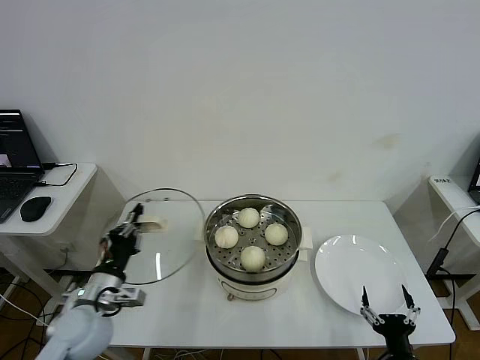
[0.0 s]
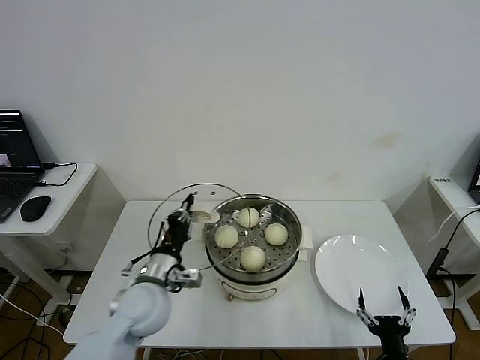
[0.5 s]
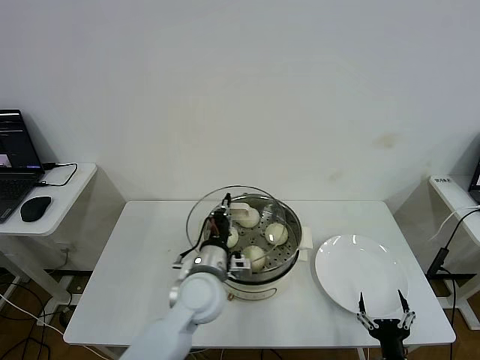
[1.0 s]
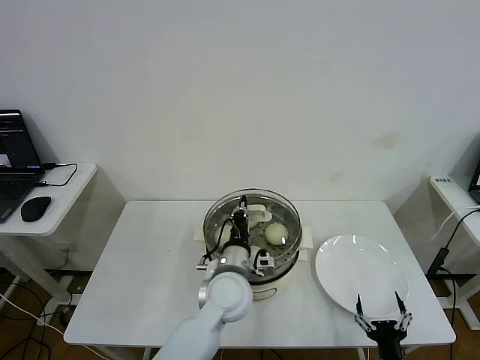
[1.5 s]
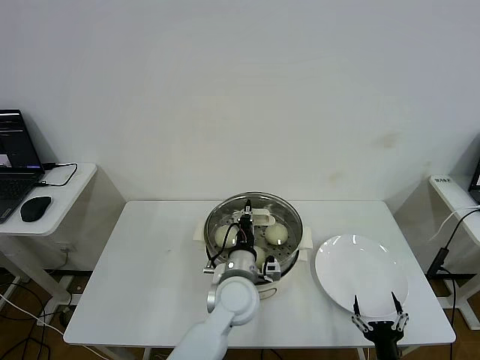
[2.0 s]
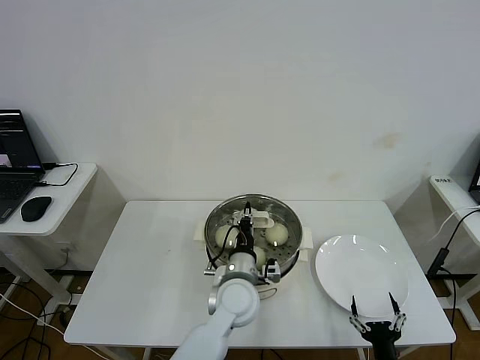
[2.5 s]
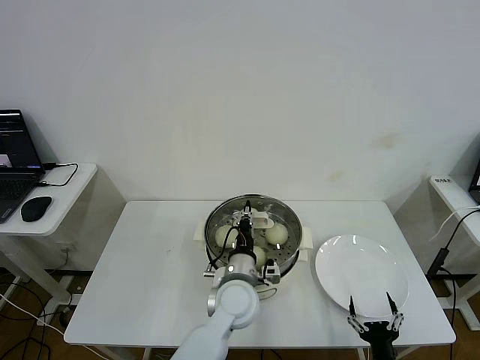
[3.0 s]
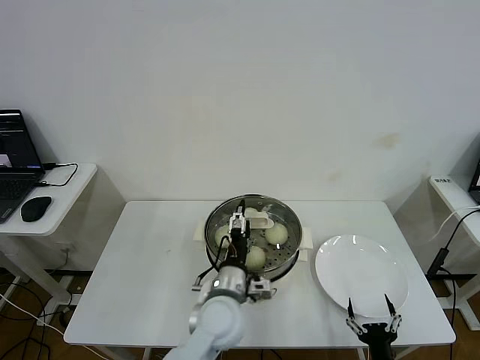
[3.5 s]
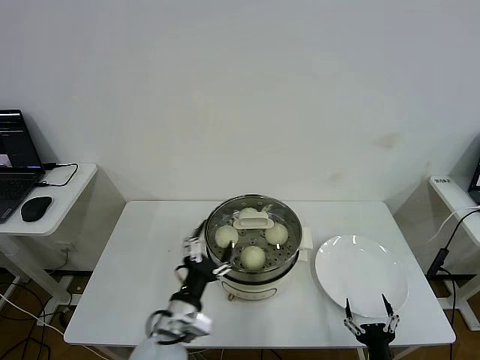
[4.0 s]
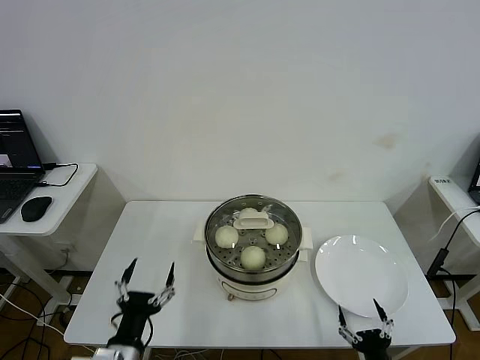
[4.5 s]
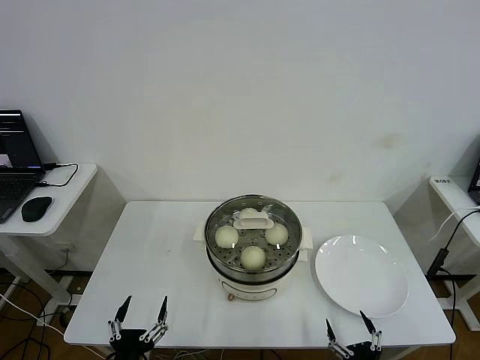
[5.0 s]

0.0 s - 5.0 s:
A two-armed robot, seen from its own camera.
Step, 0.0 s - 3.5 s: Place the pot lid on the steamer with left gripper.
0.0 s - 2.5 s: The left gripper is displaced to the right by some 30 cm.
2.5 s - 5.0 s: The left gripper shifts approximately 35 cm backward and to the left, and opens up.

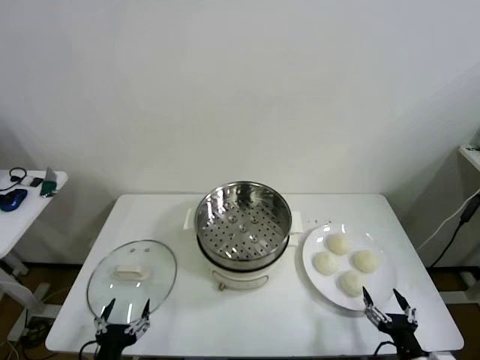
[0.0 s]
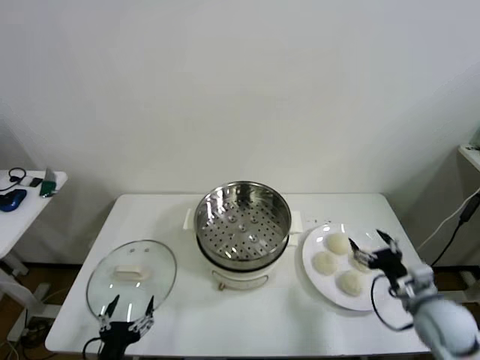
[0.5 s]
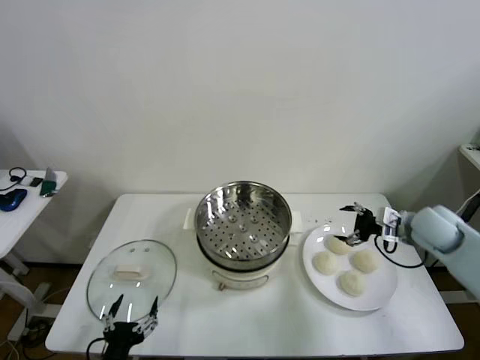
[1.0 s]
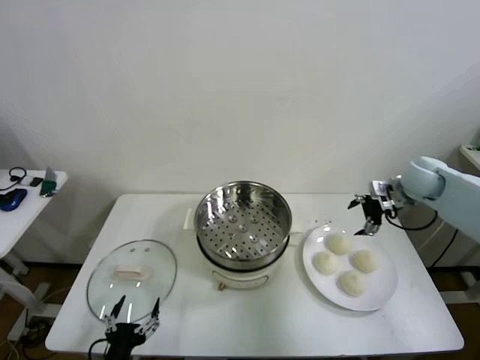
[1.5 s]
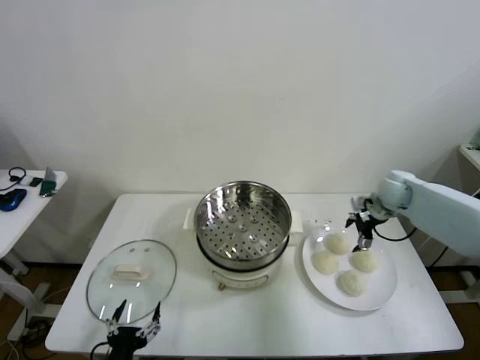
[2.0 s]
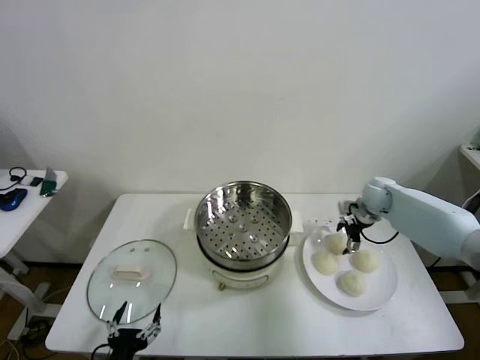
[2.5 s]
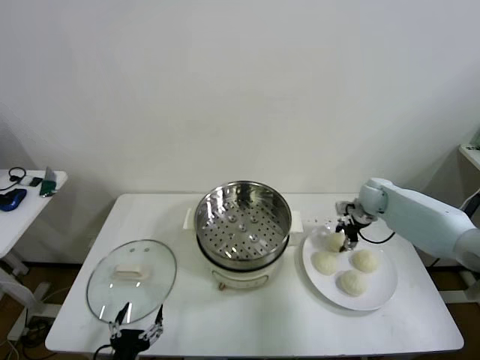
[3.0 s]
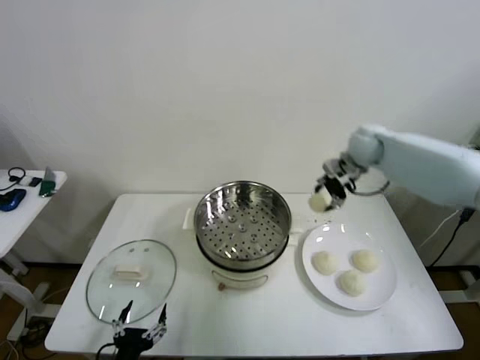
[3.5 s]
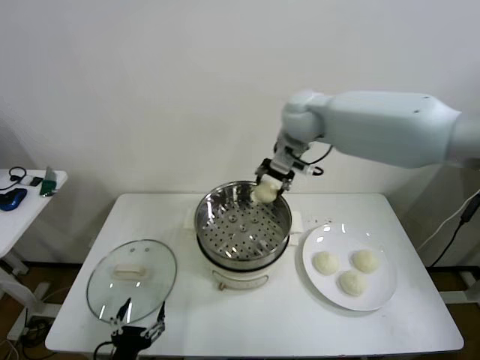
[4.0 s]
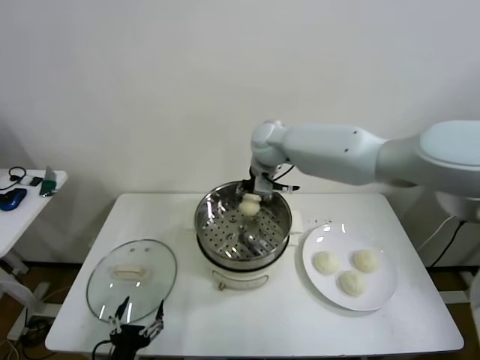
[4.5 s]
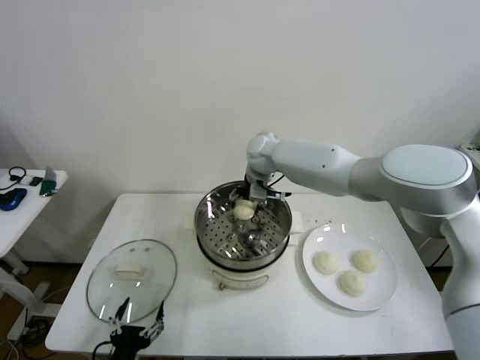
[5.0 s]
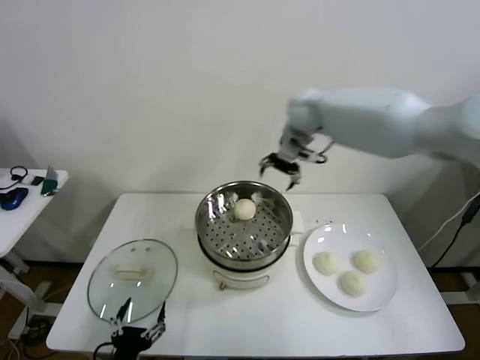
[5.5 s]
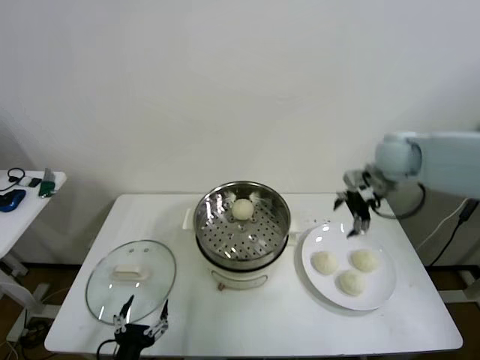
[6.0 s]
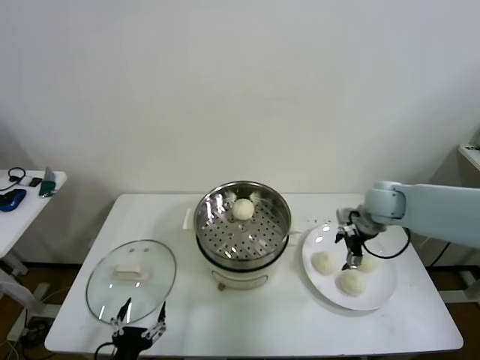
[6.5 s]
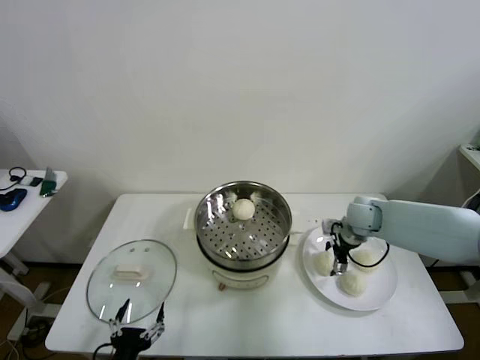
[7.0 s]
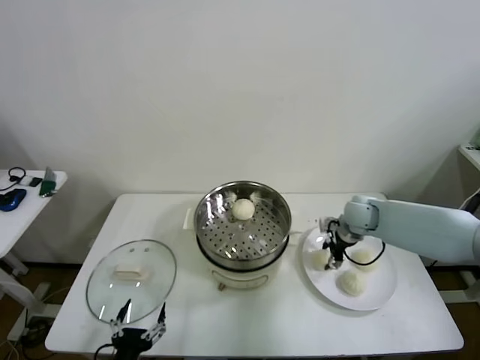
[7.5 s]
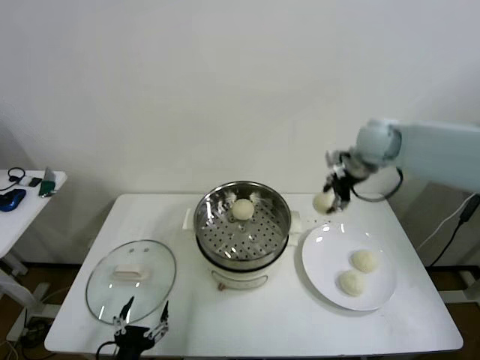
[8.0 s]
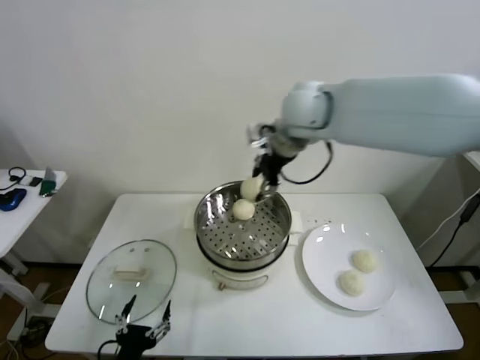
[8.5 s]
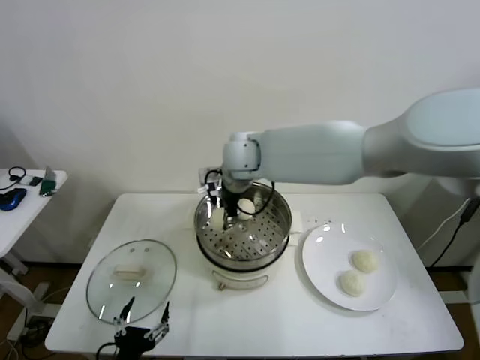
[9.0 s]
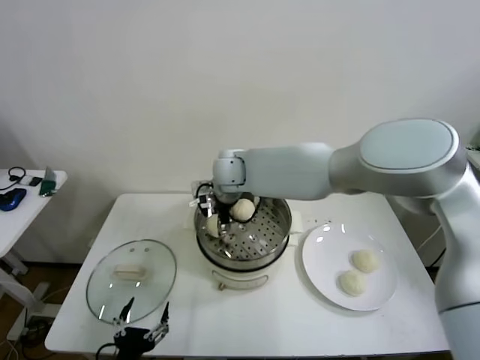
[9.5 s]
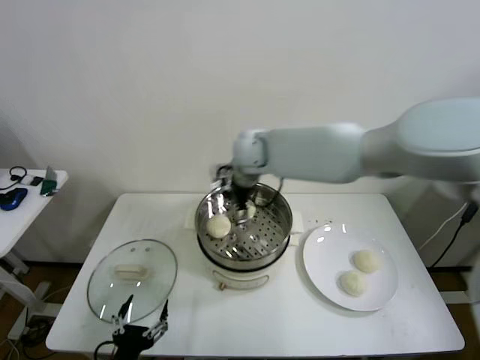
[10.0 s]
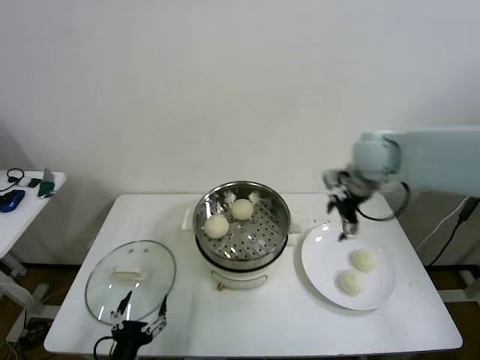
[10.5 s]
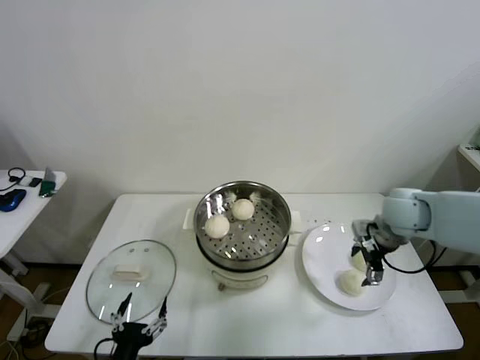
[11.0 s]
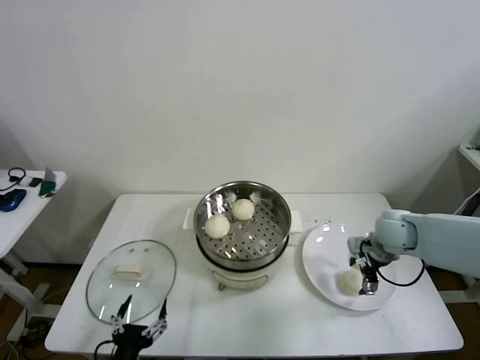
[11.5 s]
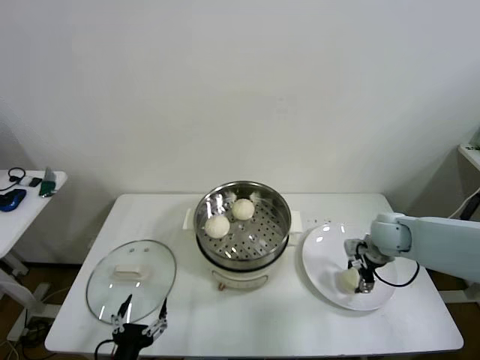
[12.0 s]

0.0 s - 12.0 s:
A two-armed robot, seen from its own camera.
Step, 0.0 s - 2.5 s: Grasp the baozi in the plate with right gripper.
Step, 3.0 s - 5.0 s: Place the baozi on the steamer with right gripper.
Step, 5.5 s - 7.0 s: Grasp the baozi in the plate with right gripper.
Step, 7.5 s - 9.5 s: Place the baozi on the steamer with right gripper.
Step, 10.0 s - 12.0 s: Grasp the baozi in the plate with right gripper.
2.0 s - 4.0 s: The right gripper travels to the left and upward by some 35 cm, and closes up.
4.0 s - 6.0 s: The right gripper is displaced to the right by approximately 25 cm, and opens its fingers.
6.0 s - 8.0 s: The right gripper heads upward and to the left, covering approximately 10 cm, and closes up.
8.0 s - 10.0 s: The right gripper is displaced to the left by roughly 20 cm, and opens its fingers.
10.0 s - 12.0 s: The right gripper heads to the right and downward, covering about 35 cm, and closes its fingers.

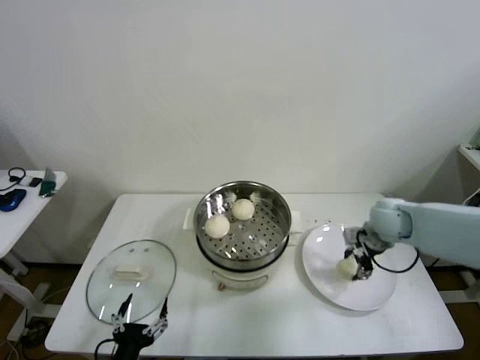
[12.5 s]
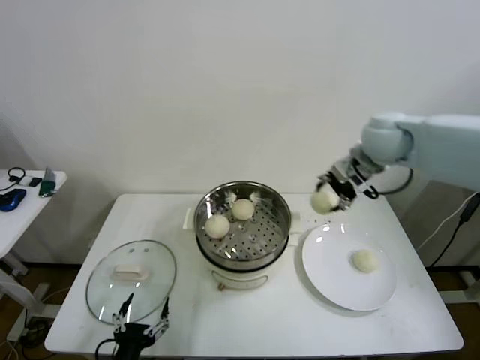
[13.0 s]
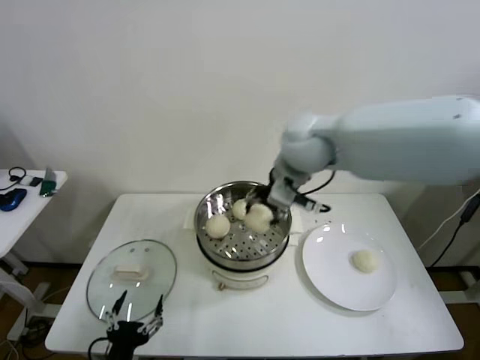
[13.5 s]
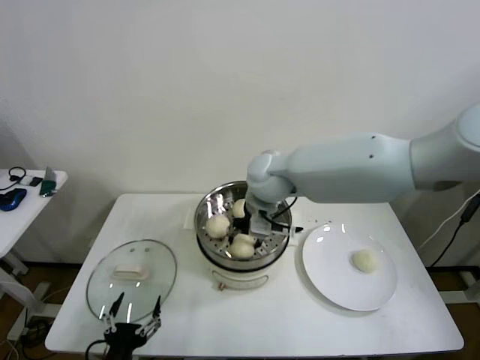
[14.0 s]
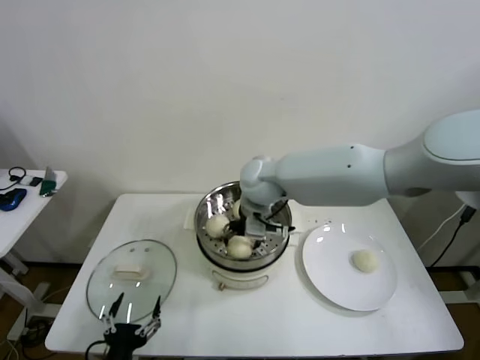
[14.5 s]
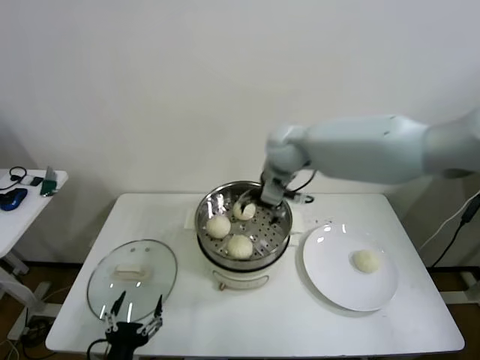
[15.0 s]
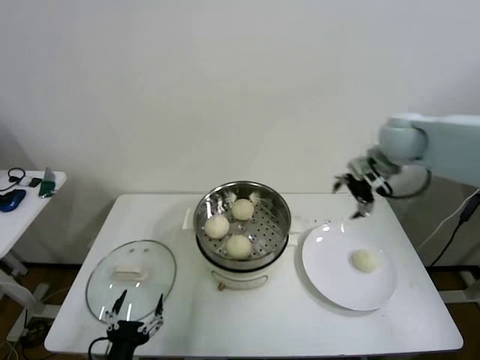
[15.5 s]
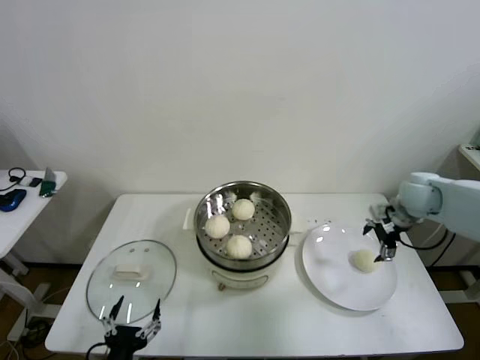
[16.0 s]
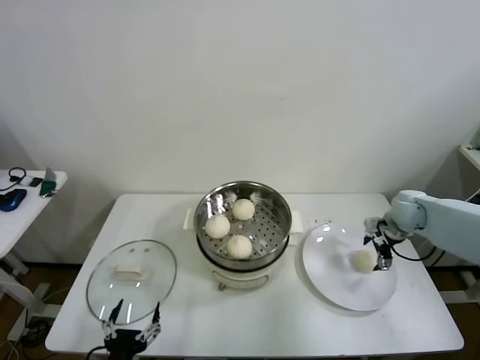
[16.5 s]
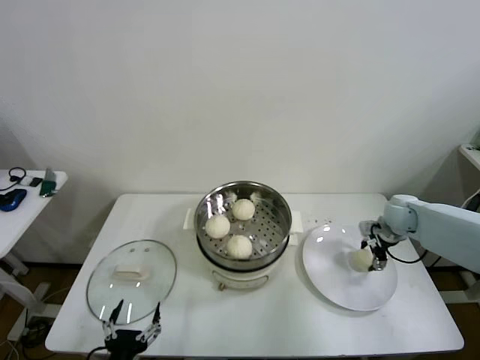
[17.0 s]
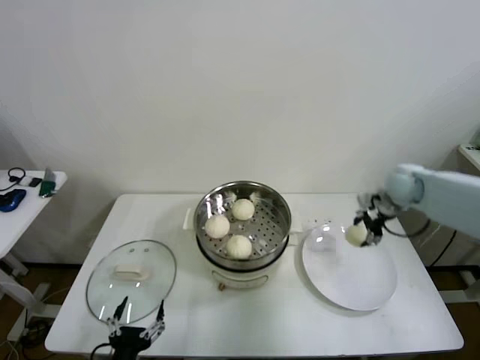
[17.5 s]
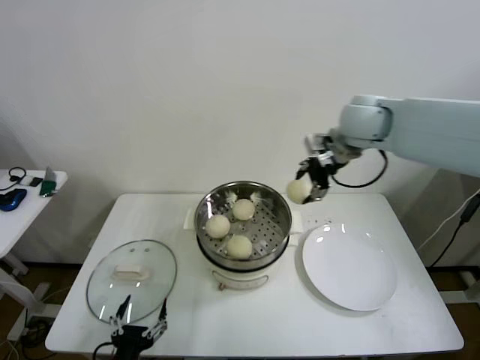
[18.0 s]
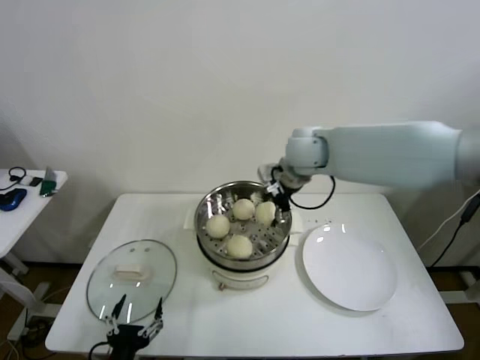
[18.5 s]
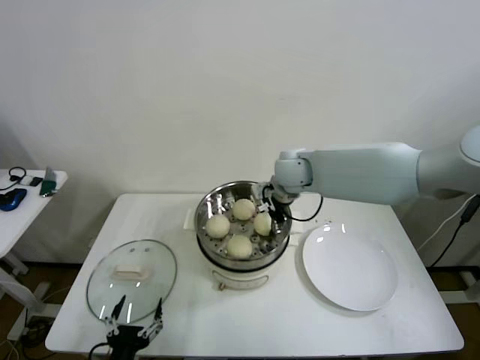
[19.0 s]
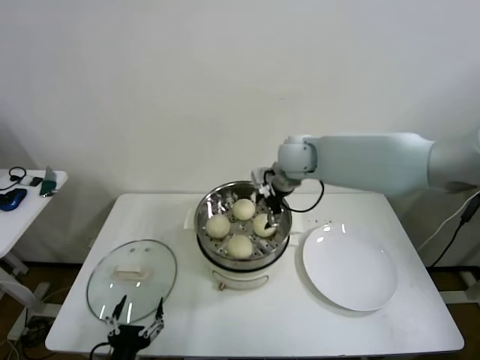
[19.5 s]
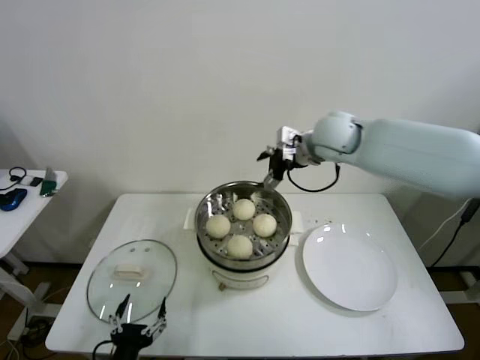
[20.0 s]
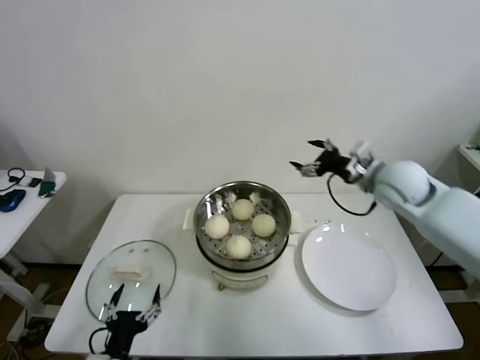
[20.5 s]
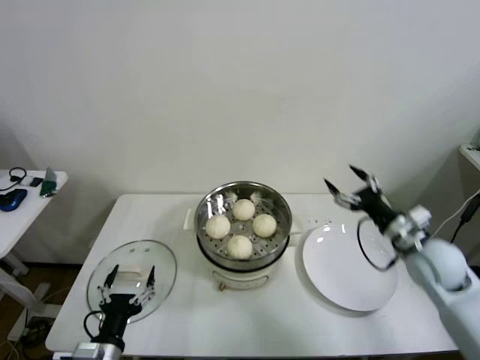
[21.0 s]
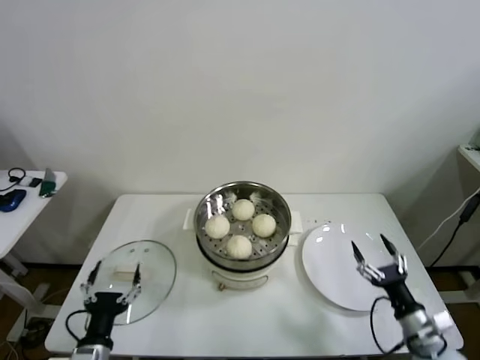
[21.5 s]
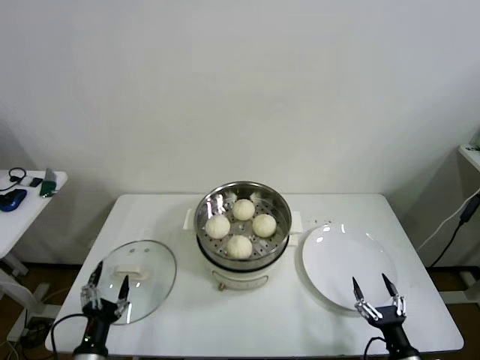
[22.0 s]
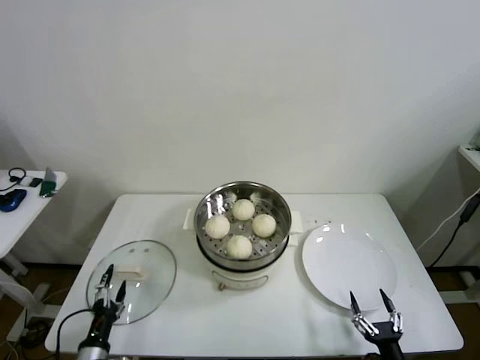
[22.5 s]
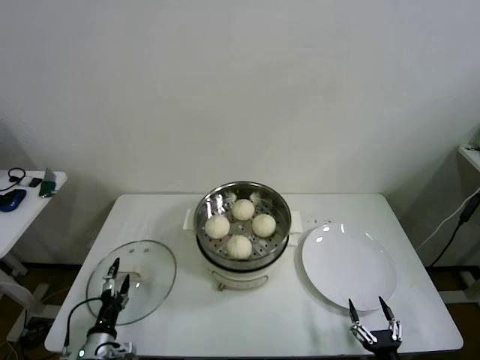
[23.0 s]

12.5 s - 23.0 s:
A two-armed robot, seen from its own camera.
Step, 12.5 s - 14.5 s: Place the baozi on the steamer with right gripper.
Step, 15.0 s - 17.0 s: Grasp the baozi in the plate with right gripper.
Step, 17.5 s - 19.0 s: Place the baozi on the steamer with right gripper.
12.5 s - 14.5 s: The right gripper heads to the left, covering roughly 30 cm, and opens its fingers.
14.5 s - 16.5 s: The right gripper shifts about 35 cm to the right.
16.5 s - 19.0 s: The right gripper moves to the left, approximately 30 cm, and closes.
19.0 s - 21.0 s: The right gripper shifts roughly 30 cm to the right and backward, and opens its fingers. The left gripper ends up some 5 cm from where it was.
21.0 s - 23.0 s: The right gripper is displaced backward and downward by some 35 cm, while the left gripper travels downward and to the left by approximately 15 cm.
